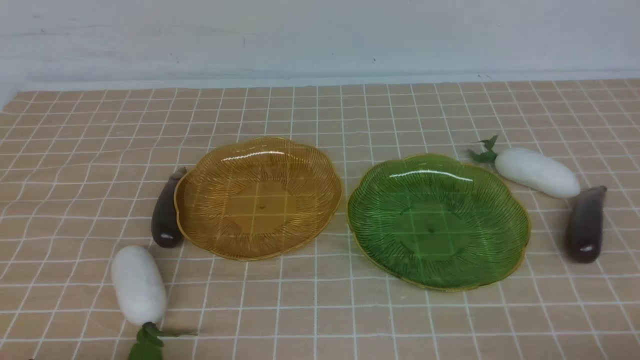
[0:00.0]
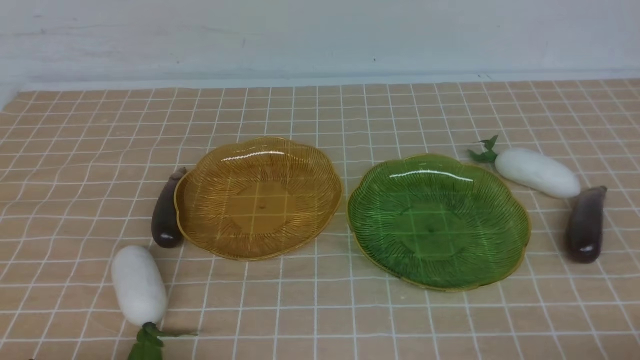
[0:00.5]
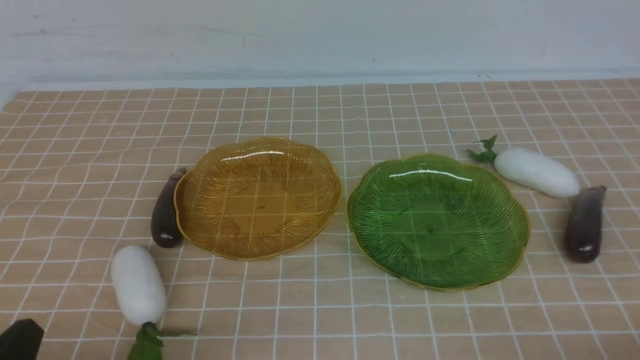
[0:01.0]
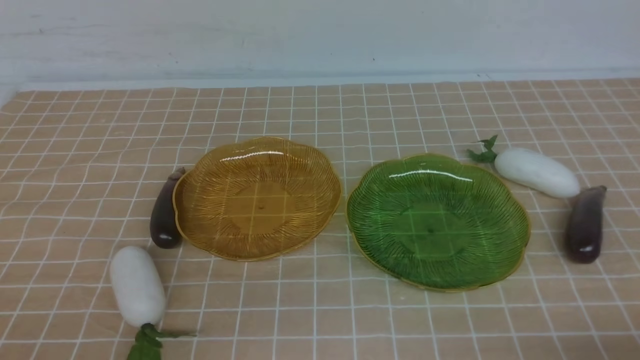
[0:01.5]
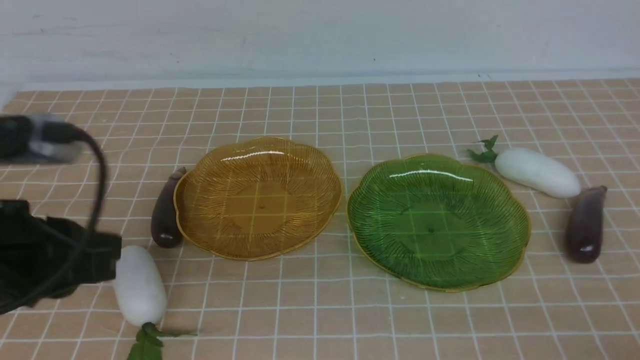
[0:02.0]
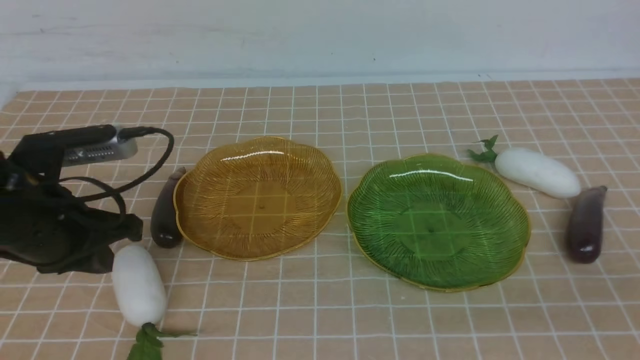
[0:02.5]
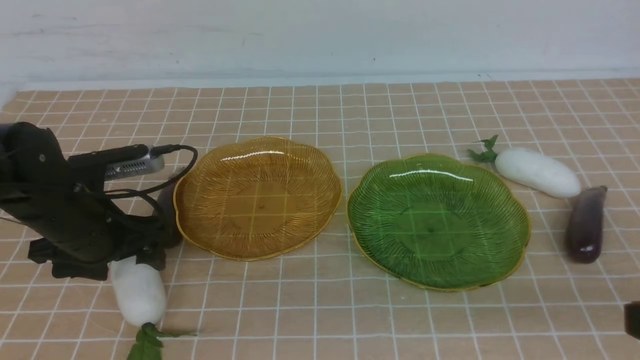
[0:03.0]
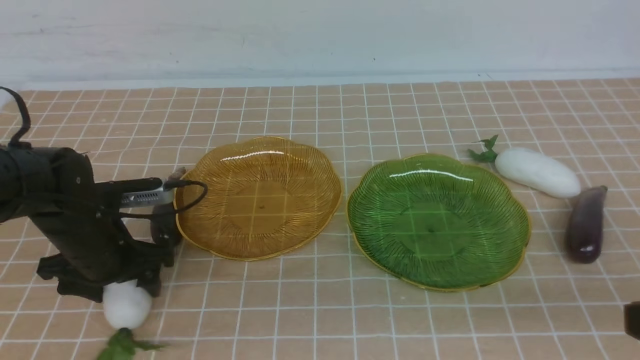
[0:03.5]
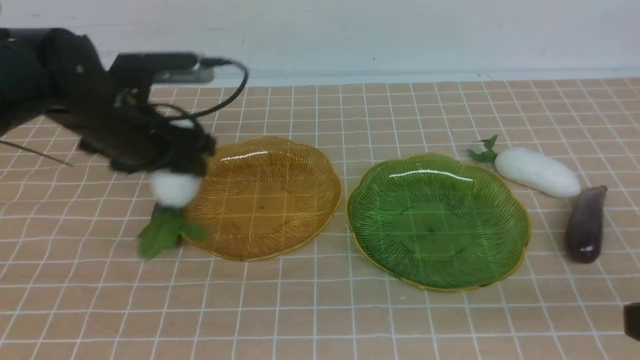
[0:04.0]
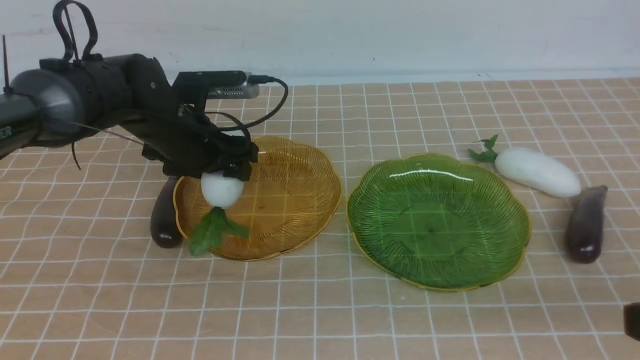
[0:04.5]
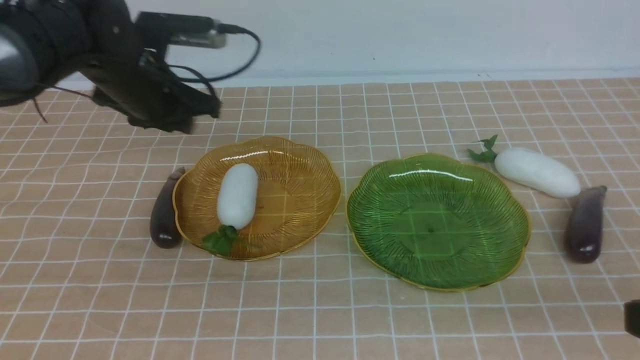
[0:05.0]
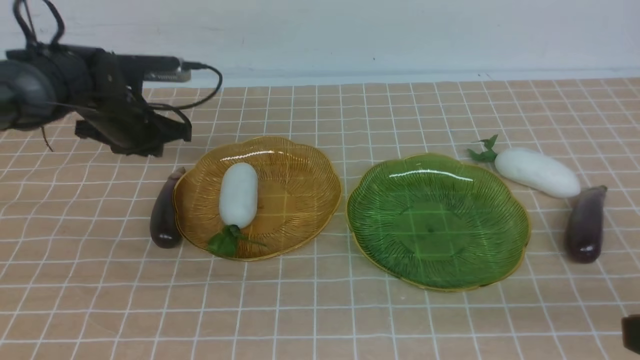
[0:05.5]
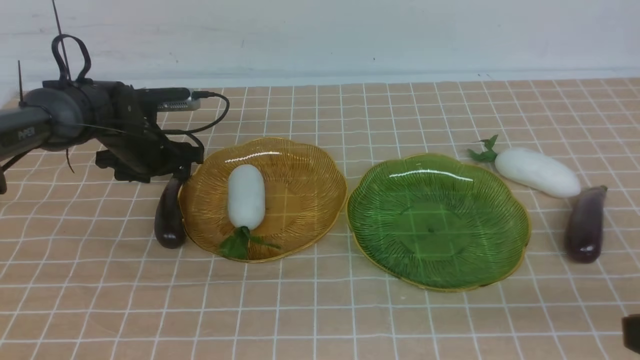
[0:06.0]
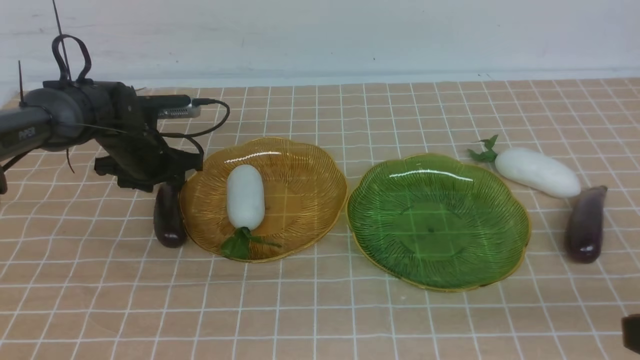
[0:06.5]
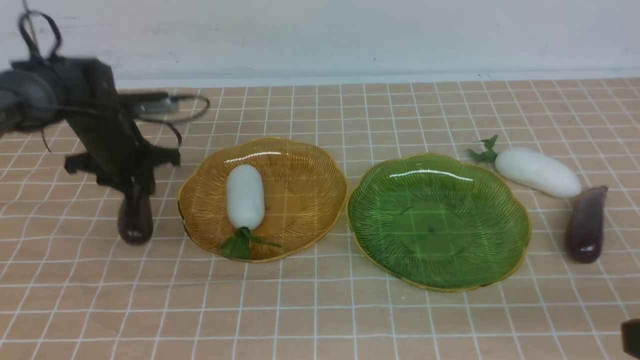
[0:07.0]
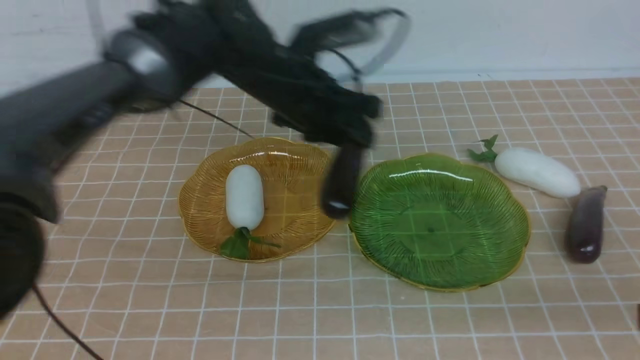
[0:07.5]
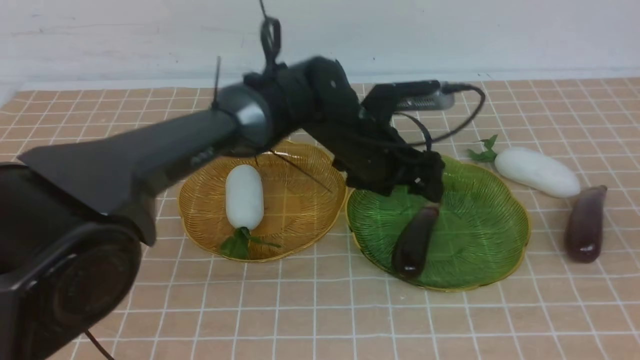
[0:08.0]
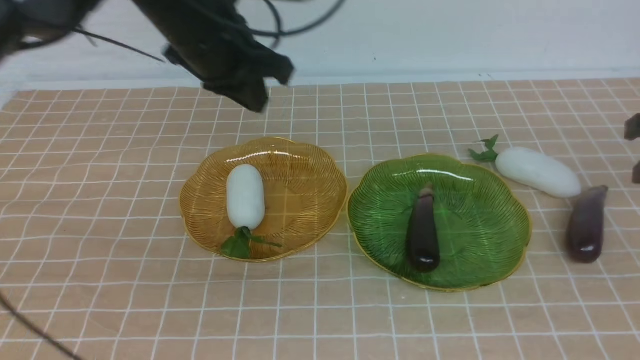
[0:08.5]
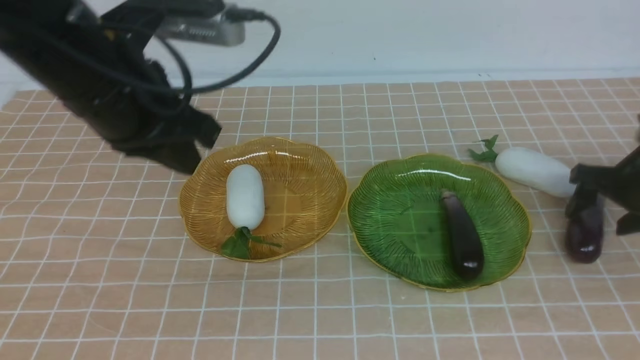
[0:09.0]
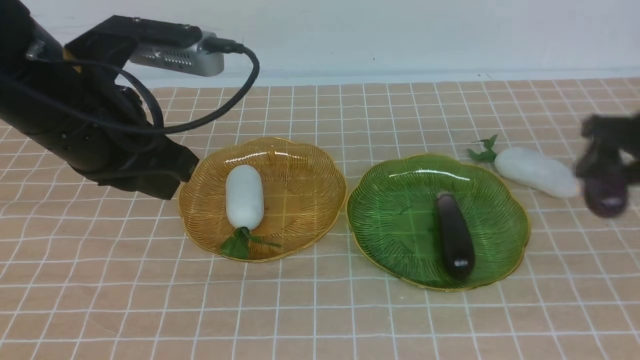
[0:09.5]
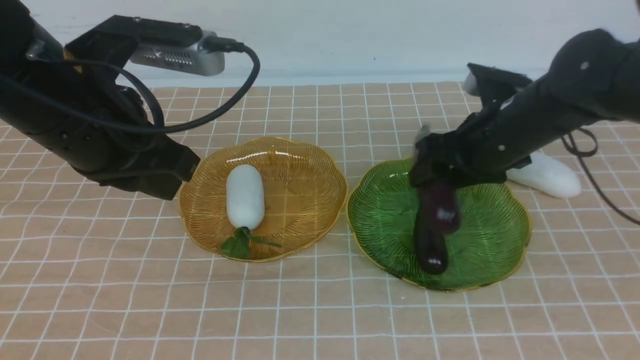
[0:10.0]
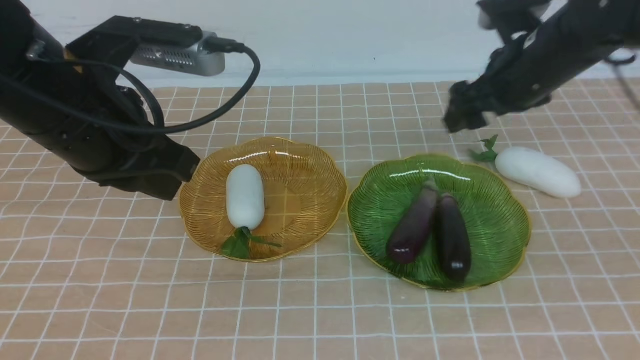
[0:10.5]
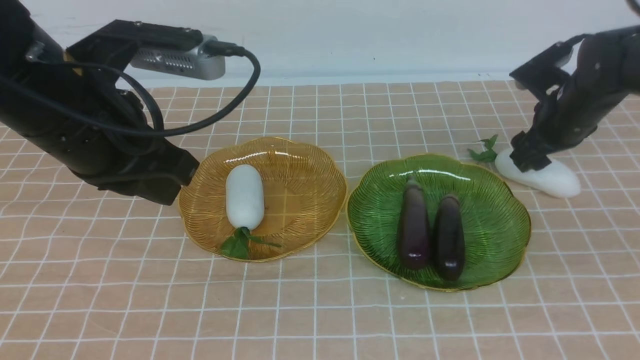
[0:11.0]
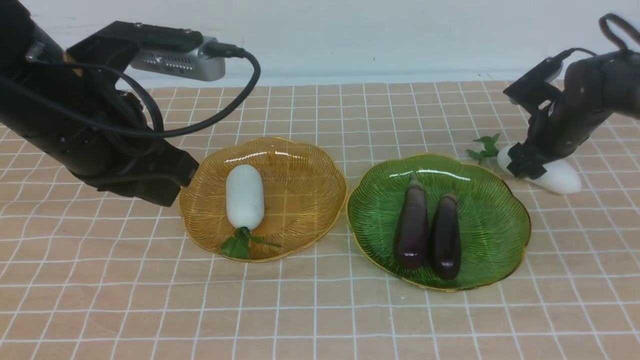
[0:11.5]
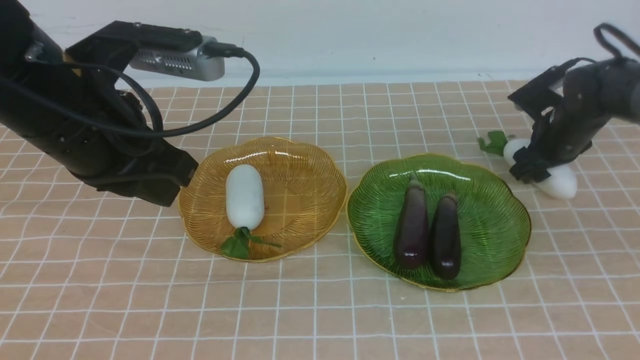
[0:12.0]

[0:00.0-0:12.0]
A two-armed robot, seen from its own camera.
Step, 0:00.0 to 0:04.5: use the left arm to grab a radish and put it into the left plate.
Step, 0:05.0 to 0:08.0: use the left arm to grab an eggplant and put it into the right plate.
Step, 0:08.5 to 0:10.0: use the right arm to grab an eggplant and put it into the right plate.
0:00.0 to 0:02.0: The left gripper moves upward and forward, approximately 20 cm.
0:02.0 to 0:04.0: The right gripper travels upward by roughly 10 cm. Meanwhile the left gripper heads forward, covering roughly 25 cm, and opens its fingers.
0:04.0 to 0:06.0: The left gripper shifts roughly 15 cm downward, to the left and forward.
0:06.0 to 0:08.0: The right gripper is displaced forward by approximately 20 cm; the left gripper shifts roughly 25 cm to the right and upward.
0:08.0 to 0:10.0: The left gripper shifts some 20 cm backward and to the left. Meanwhile the right gripper travels to the left and forward by some 20 cm, and opens up.
0:10.0 to 0:12.0: The right gripper heads to the right and forward, covering about 15 cm.

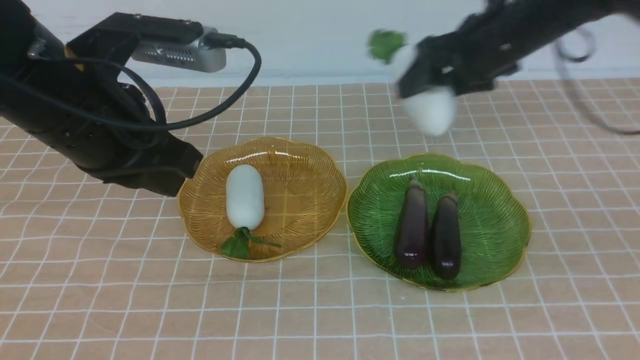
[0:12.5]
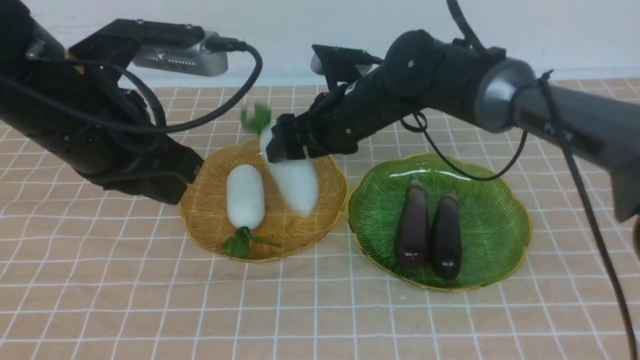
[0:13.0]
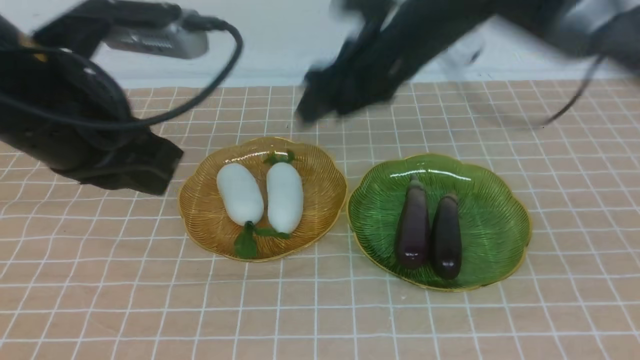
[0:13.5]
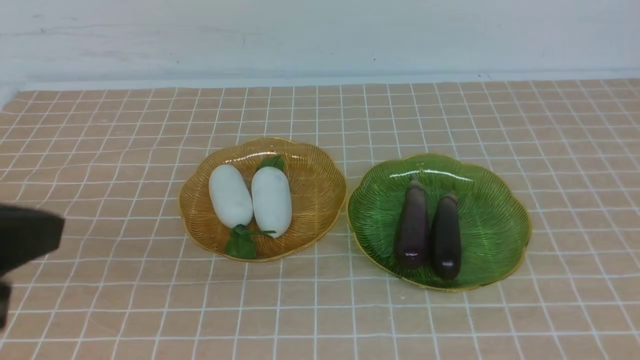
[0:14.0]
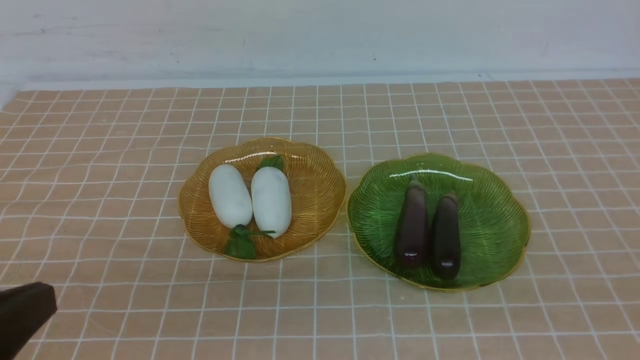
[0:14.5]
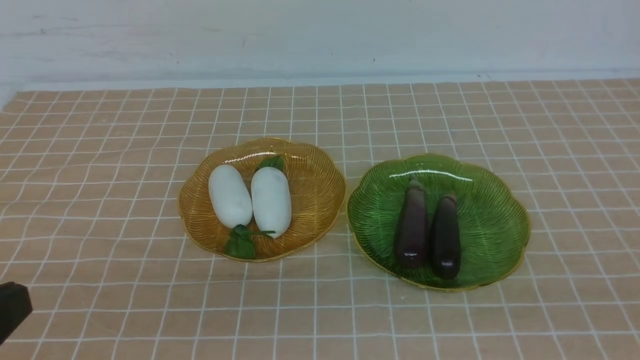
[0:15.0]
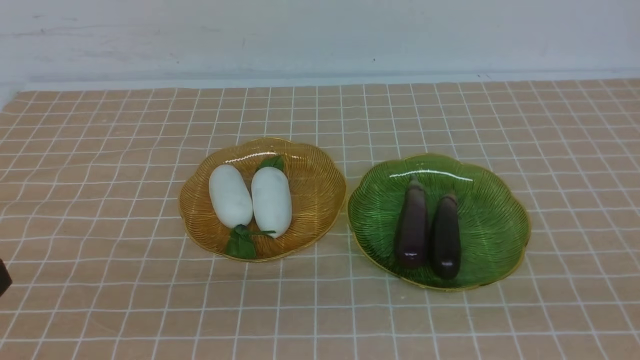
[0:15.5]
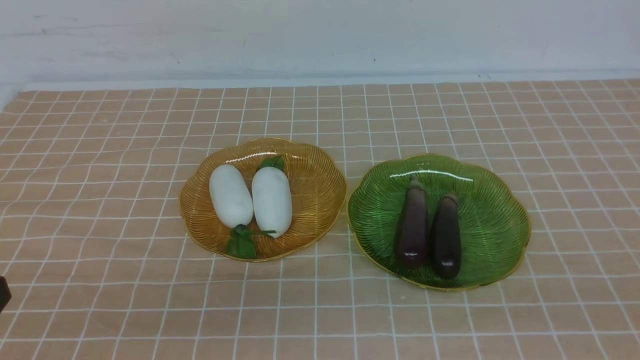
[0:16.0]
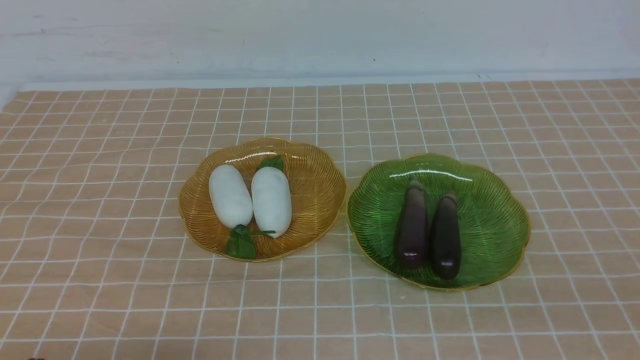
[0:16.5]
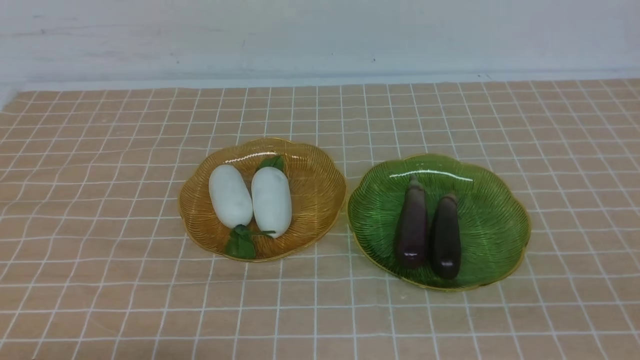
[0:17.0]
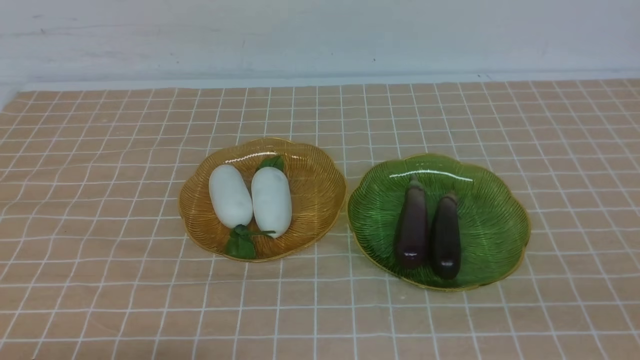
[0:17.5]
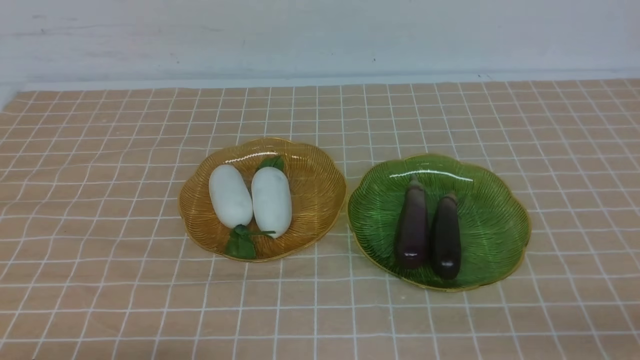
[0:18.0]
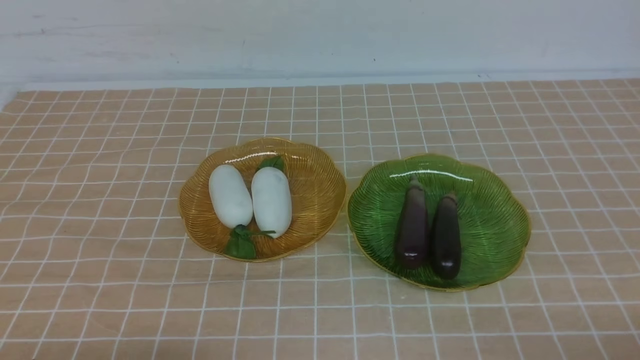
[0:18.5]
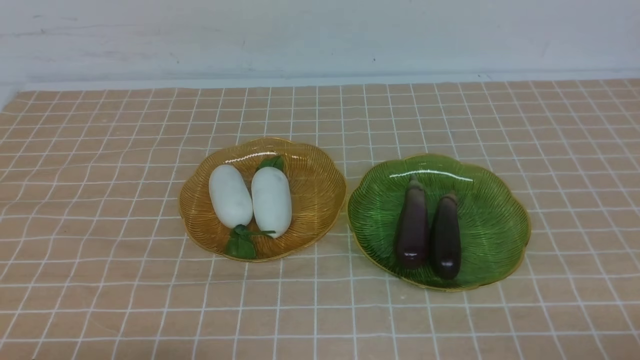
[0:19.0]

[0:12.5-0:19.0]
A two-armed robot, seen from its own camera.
0:12.5 to 0:14.5: The right gripper shifts some 50 cm backward and to the right, and closes its fingers. Meanwhile the left gripper shifts roughly 20 cm backward.
0:14.5 to 0:17.0: The left gripper moves downward, roughly 15 cm.
